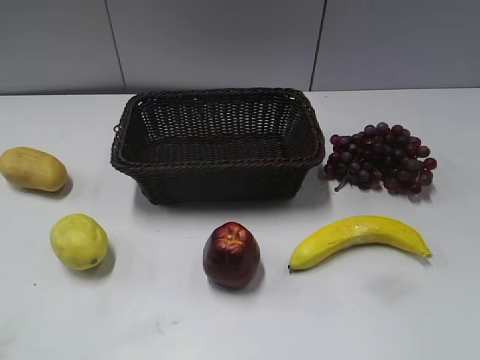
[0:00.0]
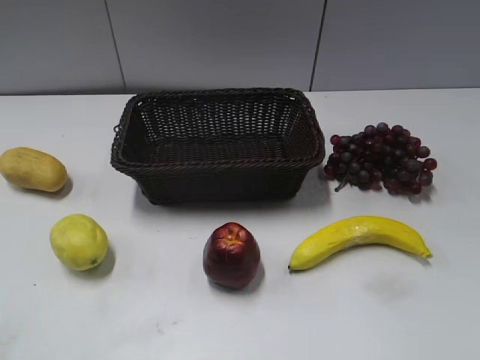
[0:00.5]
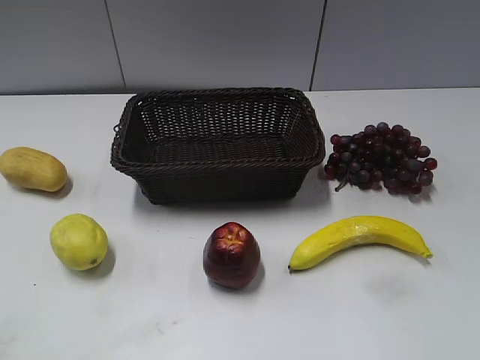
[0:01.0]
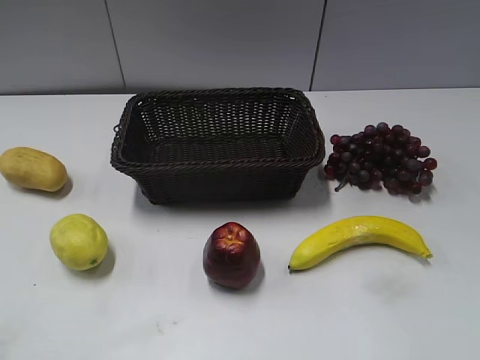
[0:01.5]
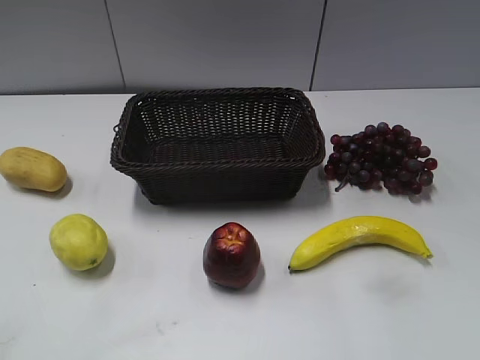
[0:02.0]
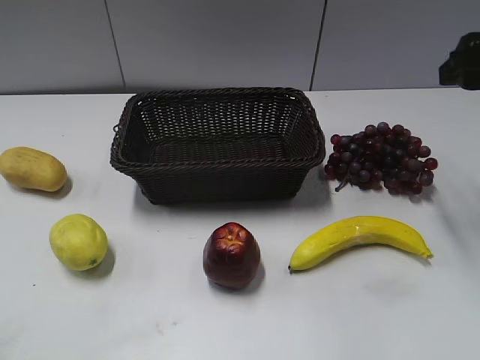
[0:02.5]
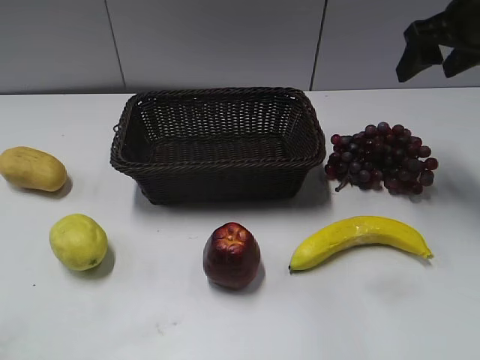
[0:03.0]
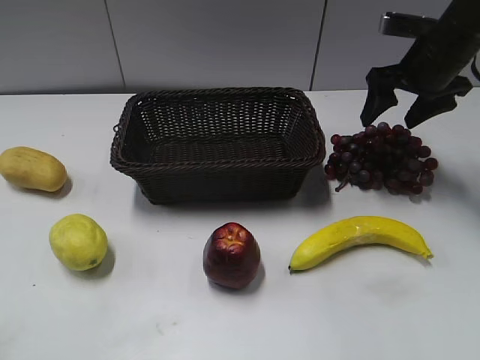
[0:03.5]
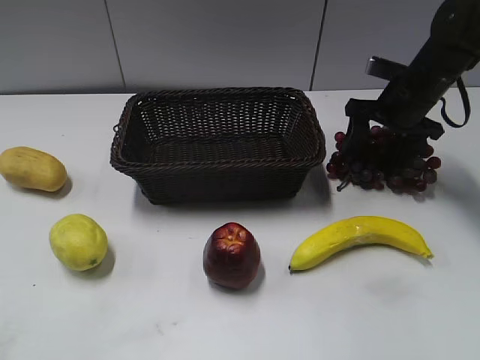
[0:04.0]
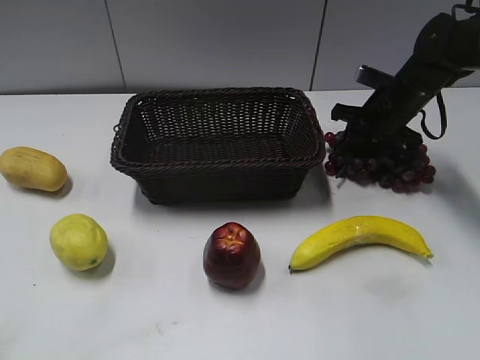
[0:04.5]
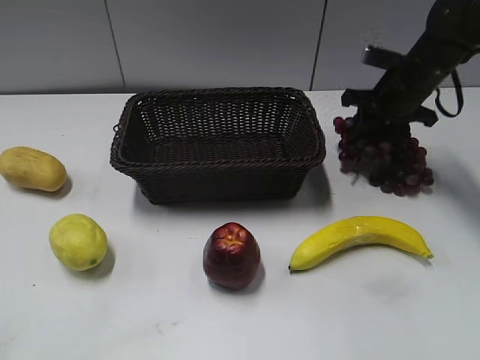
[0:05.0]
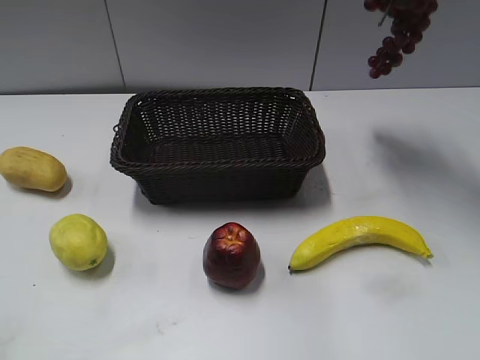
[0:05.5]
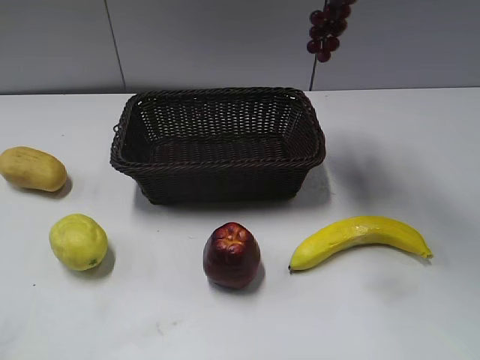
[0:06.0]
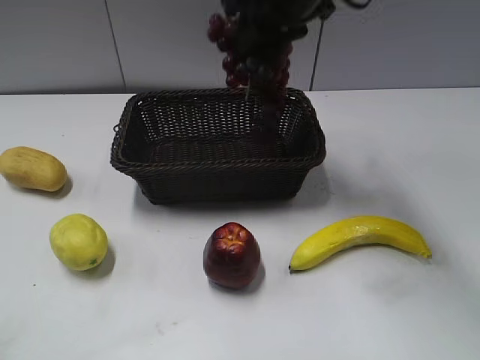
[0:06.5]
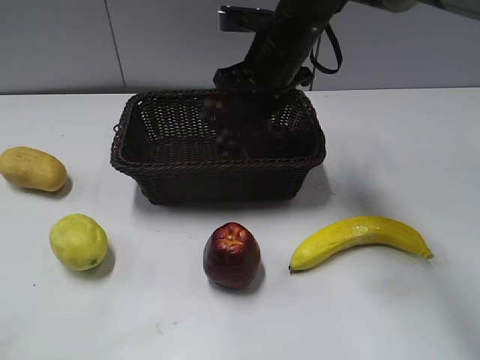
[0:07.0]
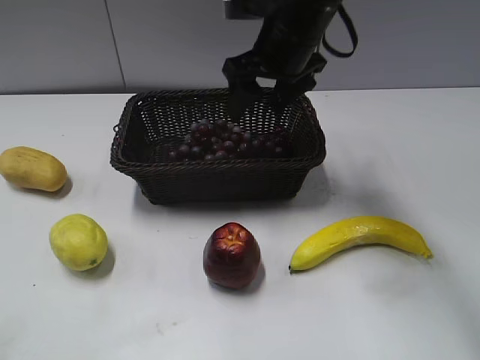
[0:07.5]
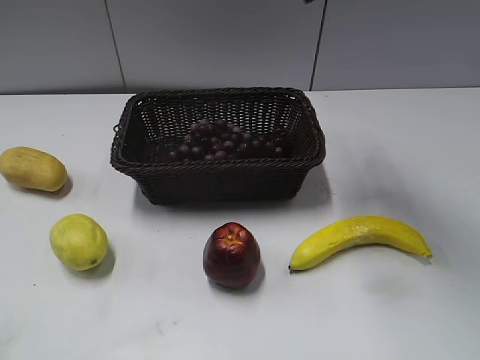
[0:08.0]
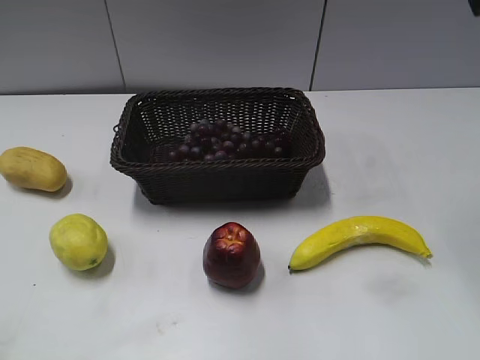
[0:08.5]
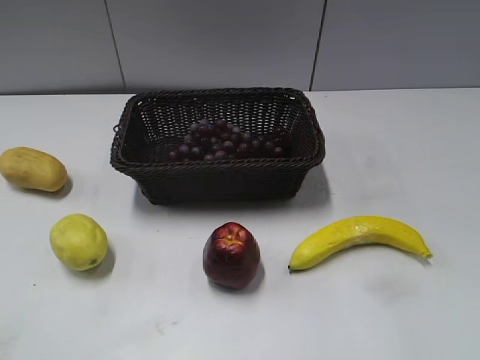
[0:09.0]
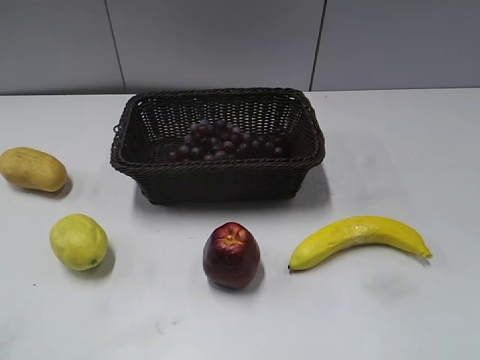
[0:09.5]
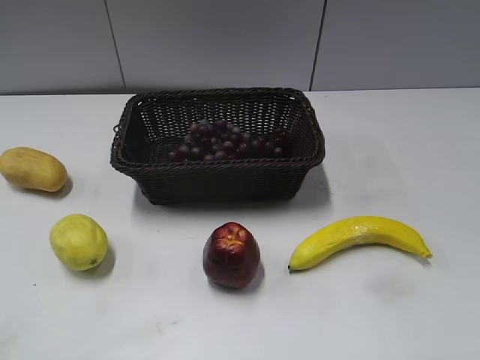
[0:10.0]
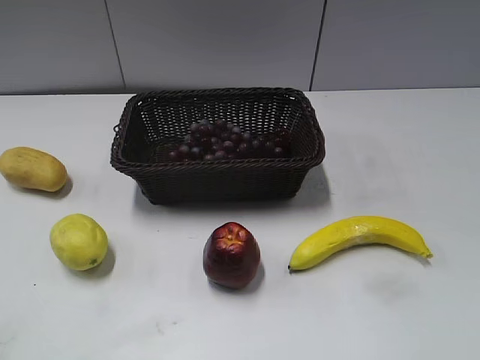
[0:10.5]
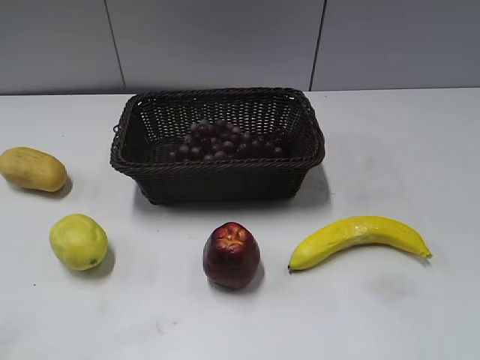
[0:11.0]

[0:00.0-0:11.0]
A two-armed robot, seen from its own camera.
Step, 0:02.5 to 0:04.0: Grasp the grape with right gripper.
Step, 0:05.0 to 0:07.0: Place the grape in the basket with right gripper.
0:02.0 to 0:03.5: The right gripper travels forward and downward by roughly 30 cm.
0:03.5 to 0:05.5: The right gripper travels upward by about 15 cm, and closes.
0:05.5 to 0:07.5: The right gripper heads to the left and downward, covering some 20 cm, and opens up.
0:07.5 to 0:09.0: The right gripper is displaced backward and to the right by approximately 35 cm.
